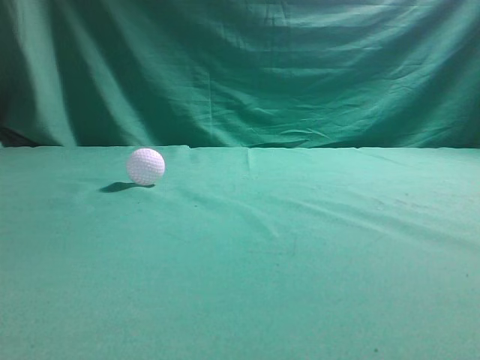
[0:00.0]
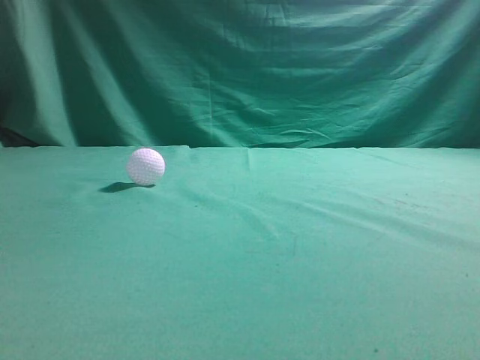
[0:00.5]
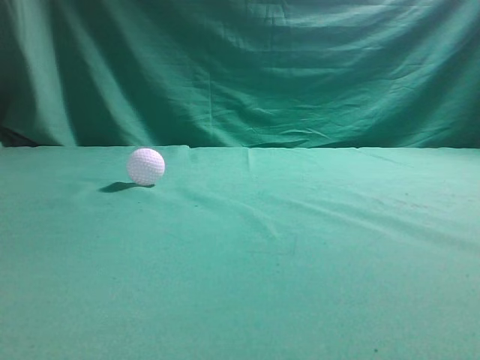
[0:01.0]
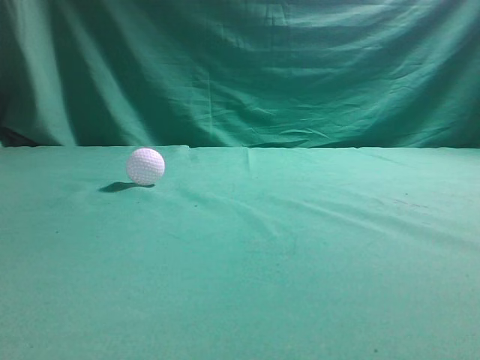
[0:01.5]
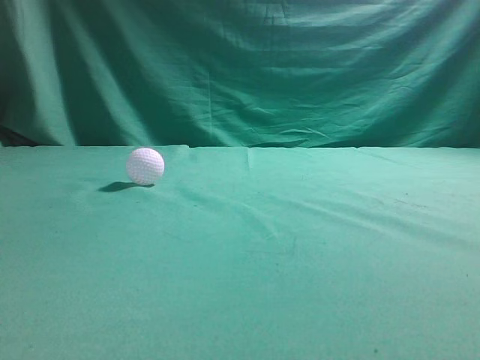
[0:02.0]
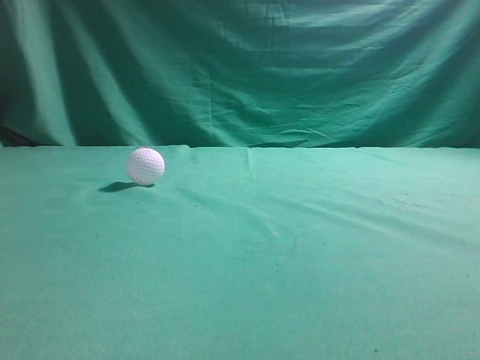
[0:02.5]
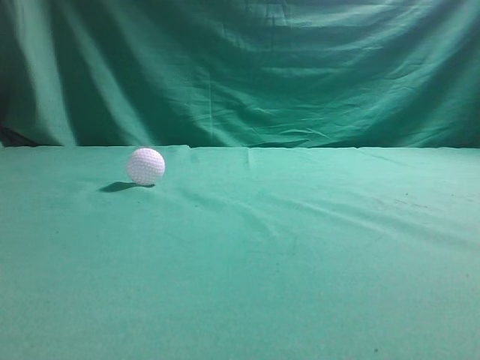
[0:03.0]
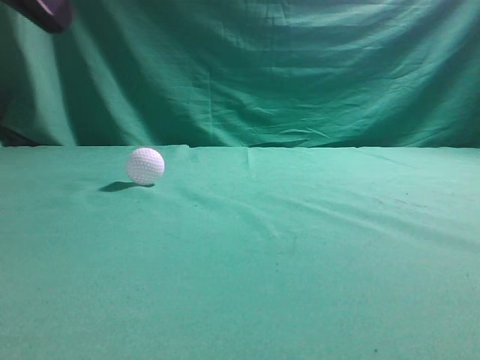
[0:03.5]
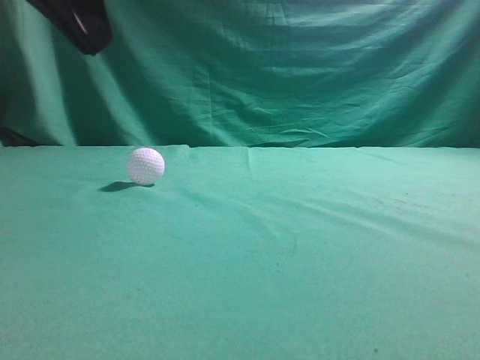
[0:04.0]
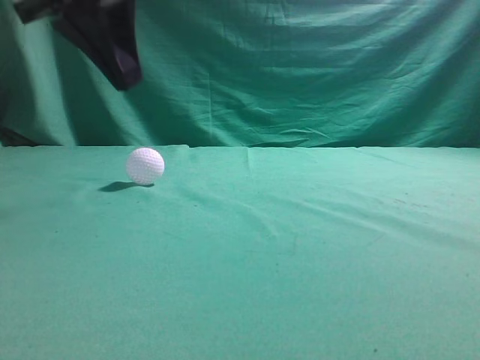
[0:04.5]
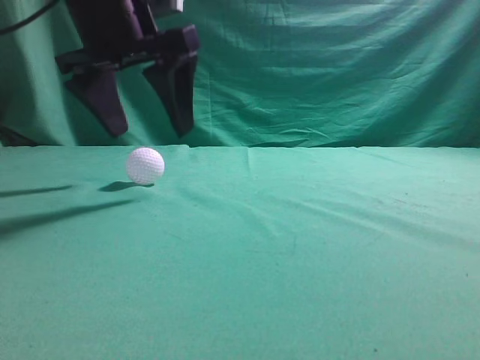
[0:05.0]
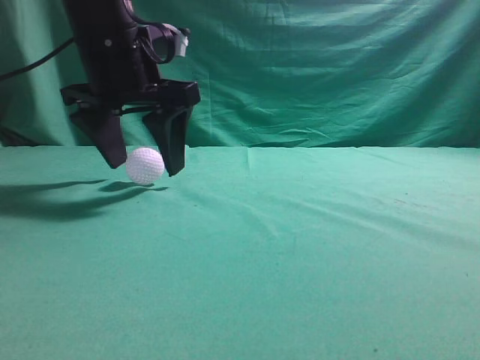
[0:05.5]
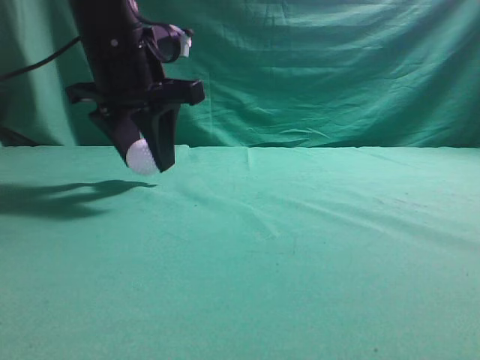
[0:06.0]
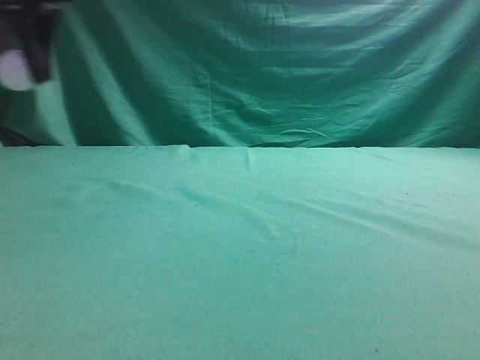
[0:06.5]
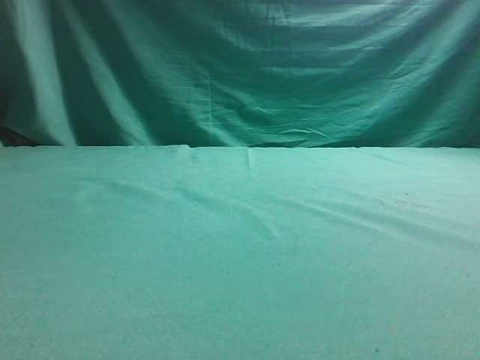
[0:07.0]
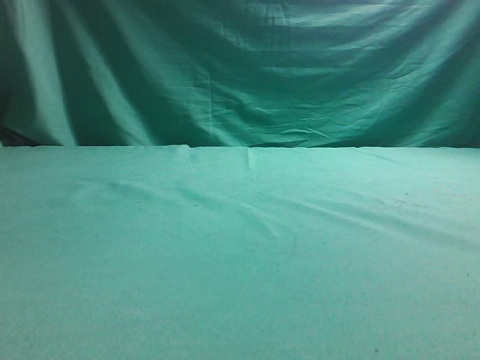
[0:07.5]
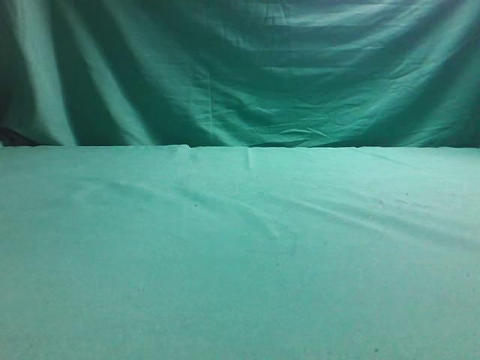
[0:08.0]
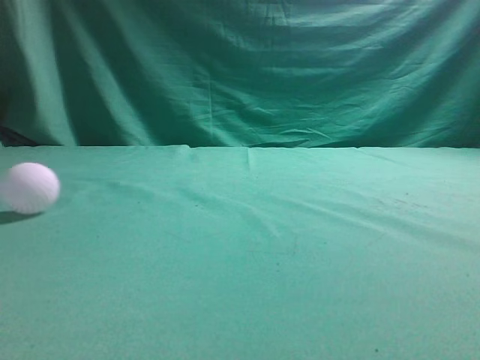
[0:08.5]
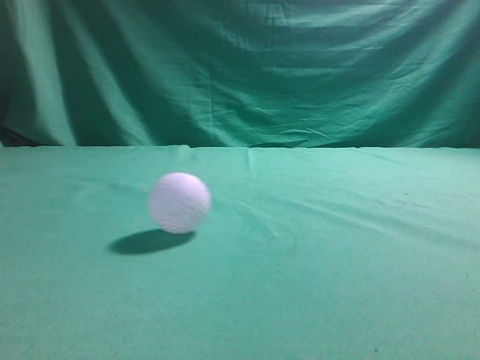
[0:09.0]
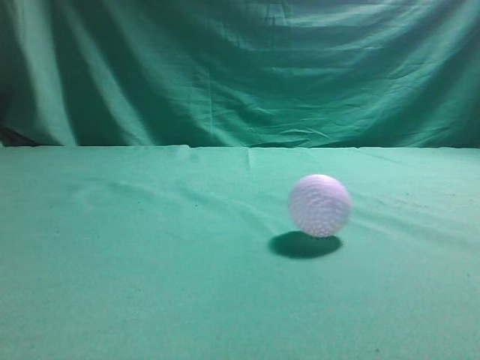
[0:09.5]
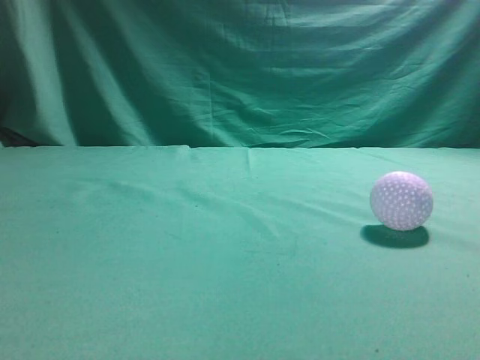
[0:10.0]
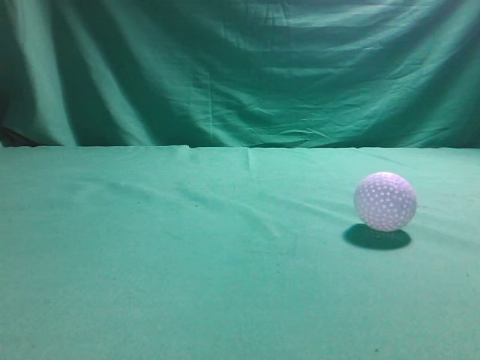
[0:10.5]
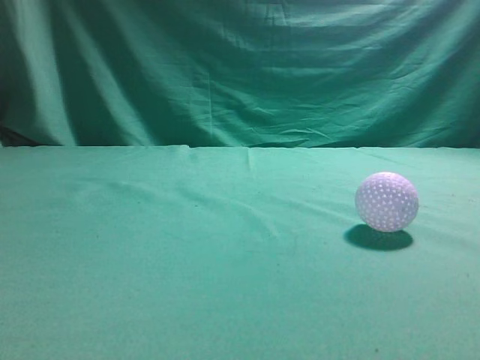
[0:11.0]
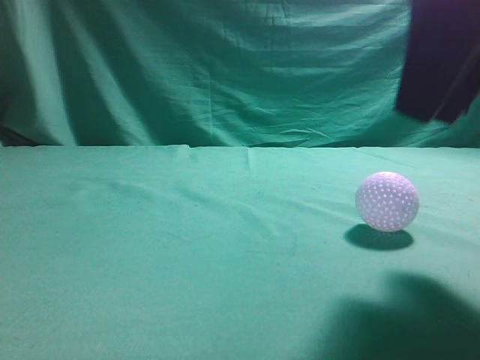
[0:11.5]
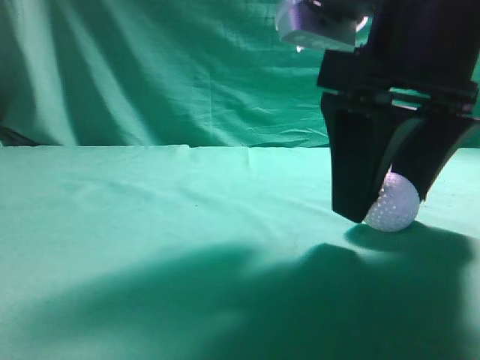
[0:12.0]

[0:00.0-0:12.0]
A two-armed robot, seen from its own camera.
Task of the whole recording: pick up the ball and place it on the plate, then pick up the ball from the plate and put it in the center of the table.
Step, 0:00.0 to 0:06.0: Grab the spherical object with your left arm.
Step, 0:06.5 to 0:07.5: Place the sphere on the white object.
0:02.0 to 0:04.0: The left gripper moves forward and to the right, some 25 cm.
0:04.0 to 0:06.0: The left gripper goes about 15 cm forward and downward, and opens up.
0:06.0 to 0:08.0: The left gripper goes some 20 cm to the left and upward.
0:08.0 to 0:10.0: The right gripper goes about 10 cm upward.
0:10.0 to 0:12.0: The right gripper goes about 25 cm forward, to the left and downward, and opens its fingers.

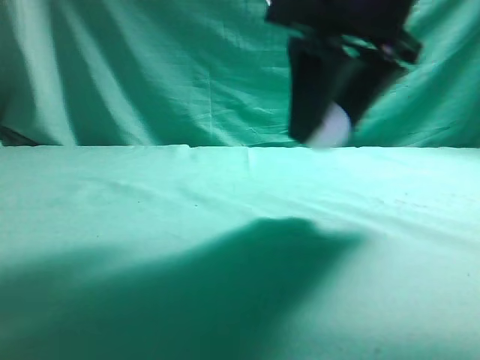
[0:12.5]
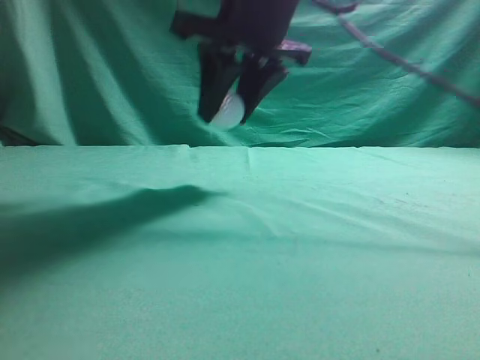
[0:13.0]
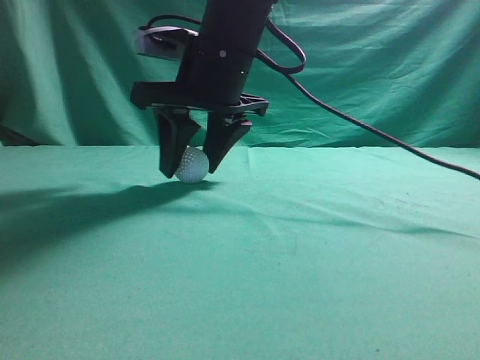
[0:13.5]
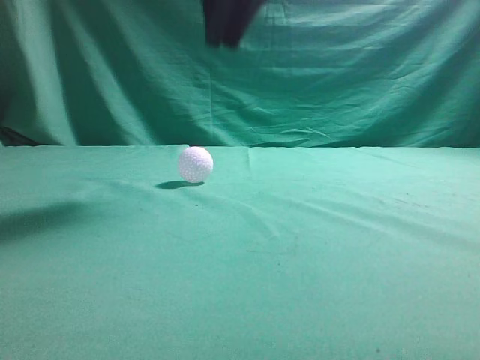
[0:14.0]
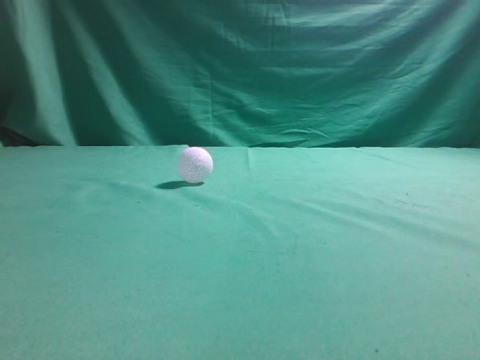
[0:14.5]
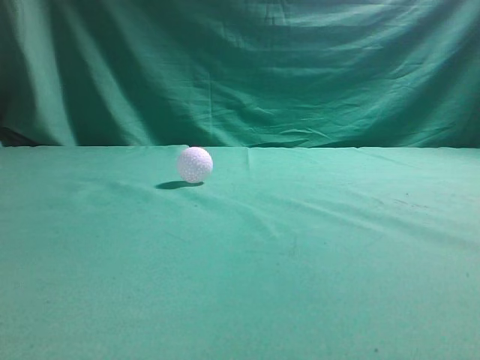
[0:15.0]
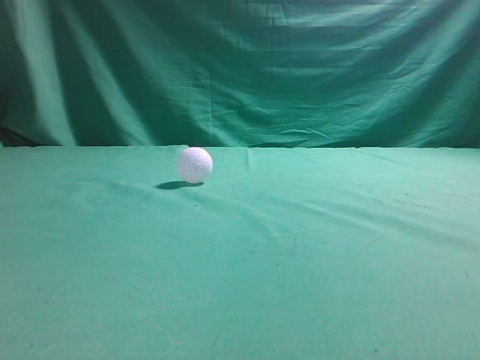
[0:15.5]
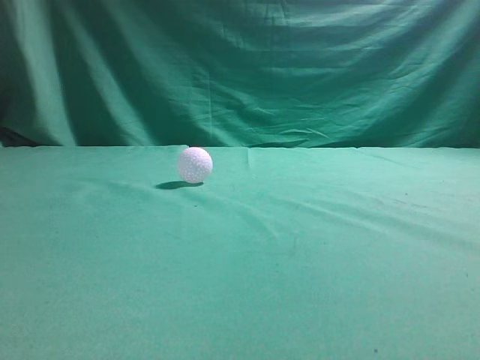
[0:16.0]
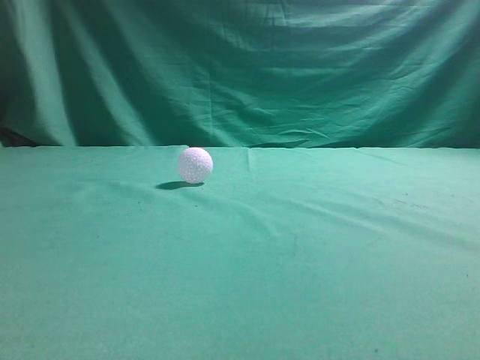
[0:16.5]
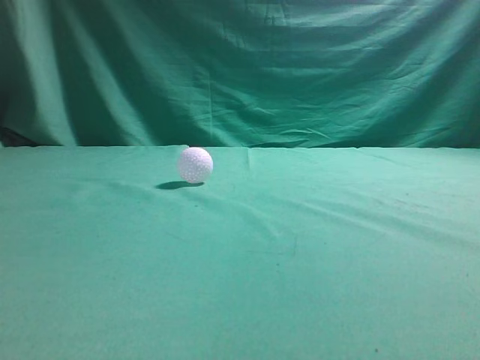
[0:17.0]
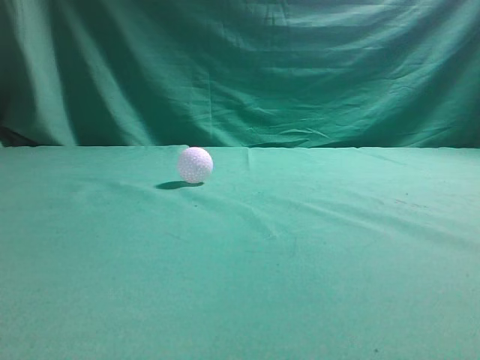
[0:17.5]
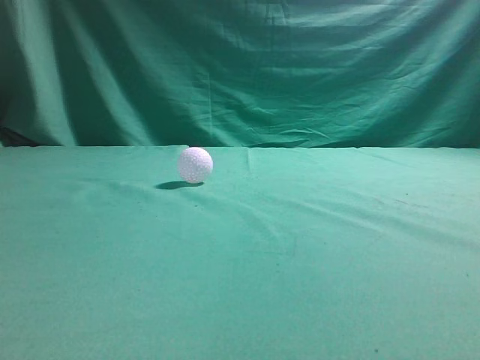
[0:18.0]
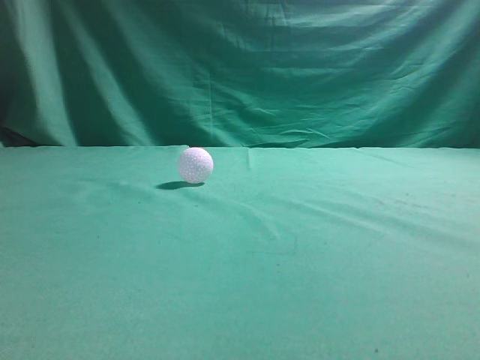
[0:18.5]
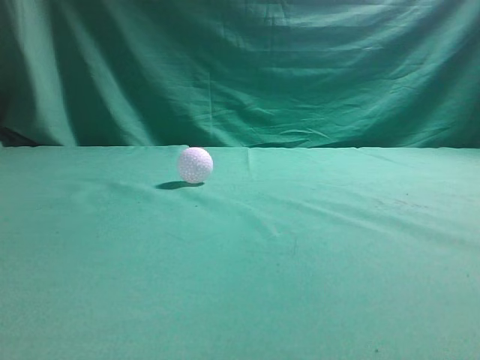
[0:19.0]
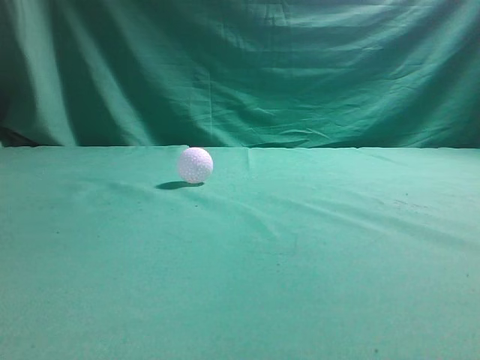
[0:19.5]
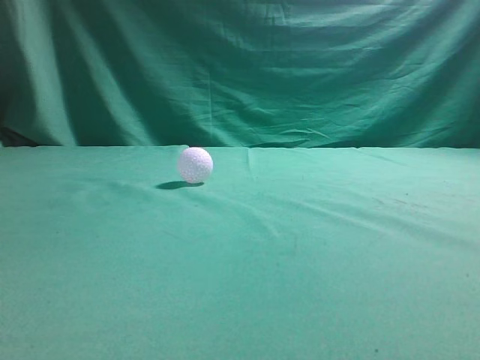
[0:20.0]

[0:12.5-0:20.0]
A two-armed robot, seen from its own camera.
Task of the whole recording: pick up the ball and place it on the plate, then pick up the ball from the plate and put it in the center of the table.
Step, 0:12.5 to 0:13.5: Put the picked-up object on the table.
0:12.5 to 0:14.5: The right gripper shifts approximately 25 cm upward, and closes up.
